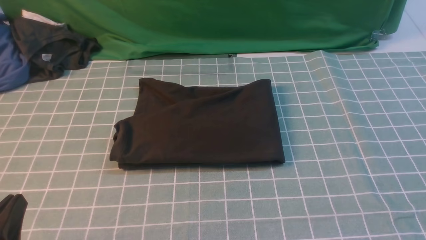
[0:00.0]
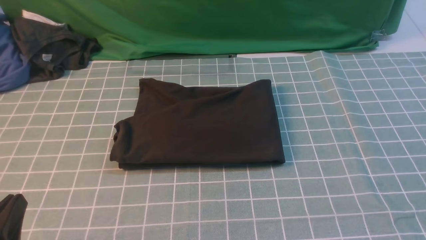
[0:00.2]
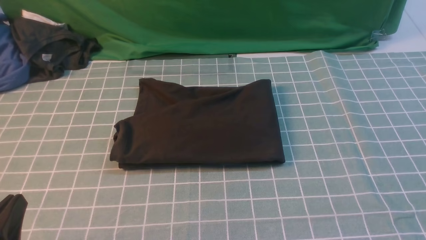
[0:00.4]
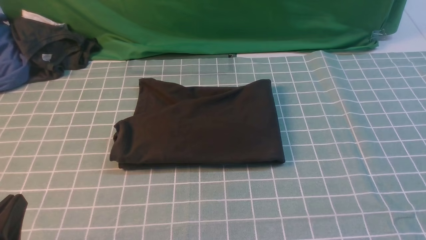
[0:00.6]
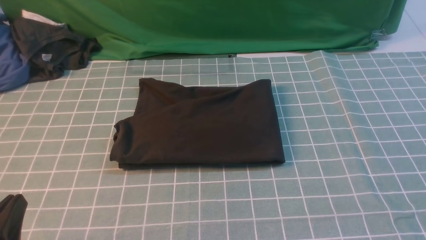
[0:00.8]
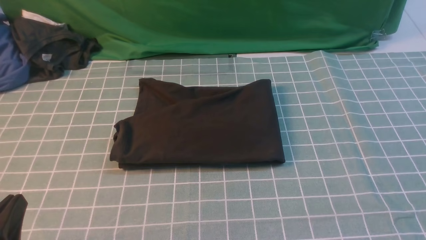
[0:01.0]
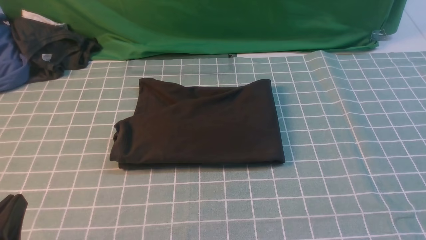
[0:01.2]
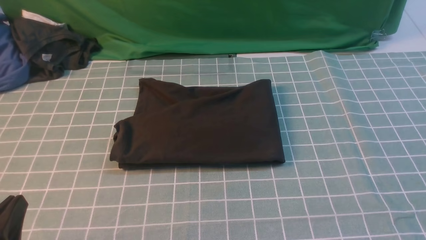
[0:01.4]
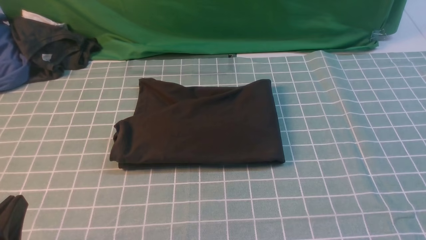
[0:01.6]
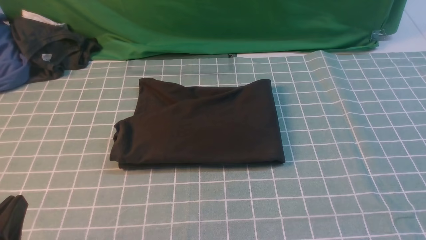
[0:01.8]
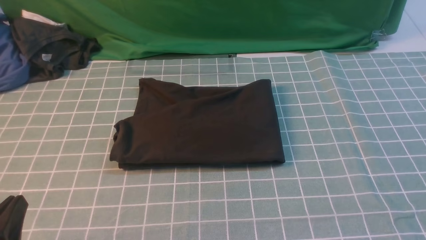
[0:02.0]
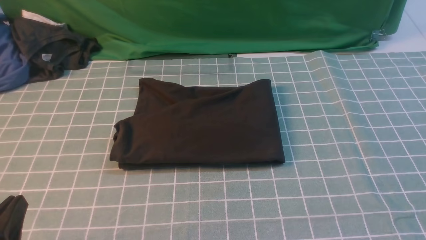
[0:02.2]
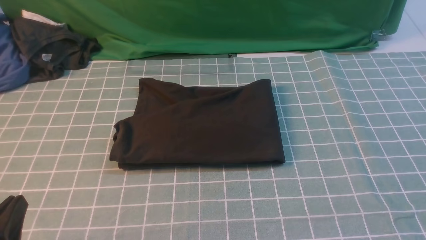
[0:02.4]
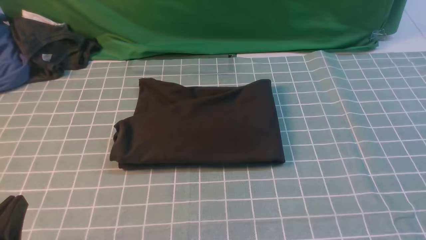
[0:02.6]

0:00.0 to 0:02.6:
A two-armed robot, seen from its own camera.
0:01.2 to 0:02.6: The two grippers keep their place.
